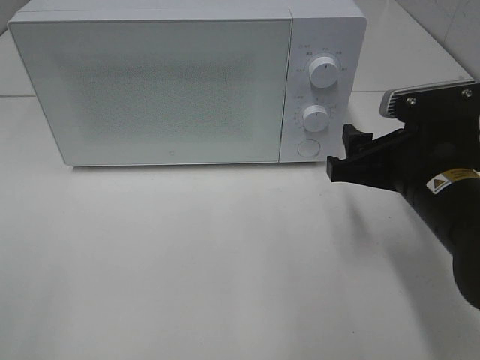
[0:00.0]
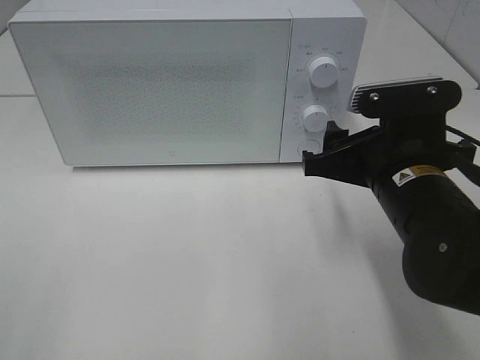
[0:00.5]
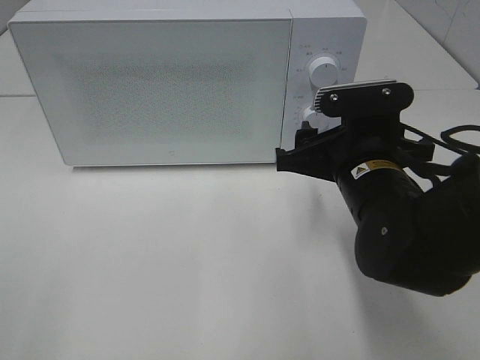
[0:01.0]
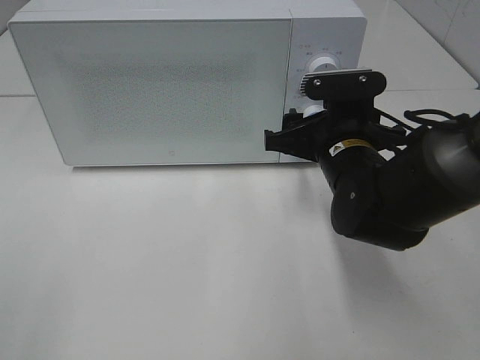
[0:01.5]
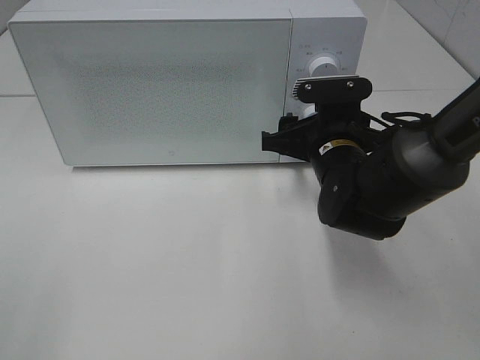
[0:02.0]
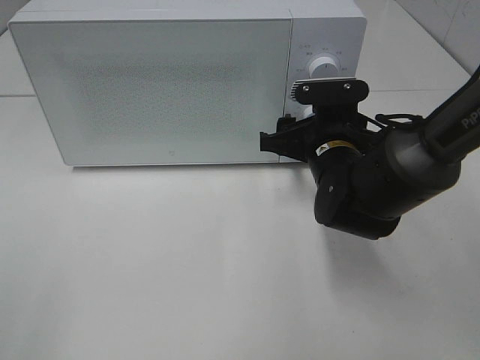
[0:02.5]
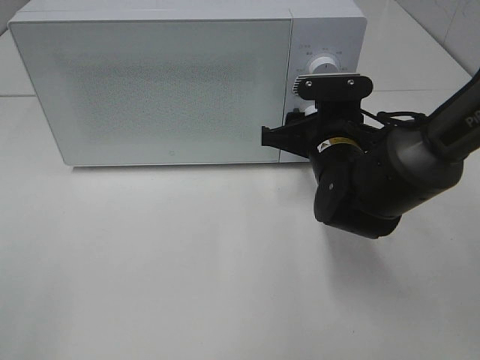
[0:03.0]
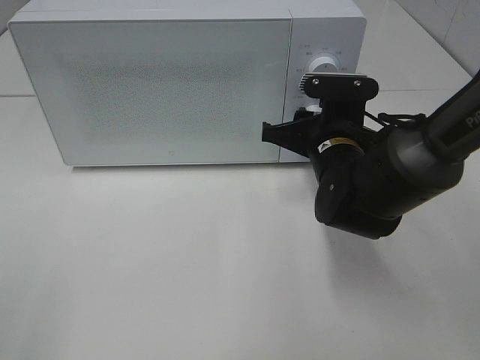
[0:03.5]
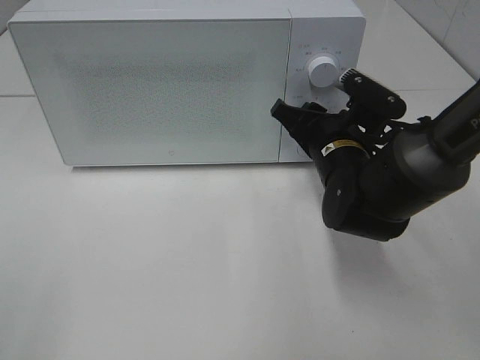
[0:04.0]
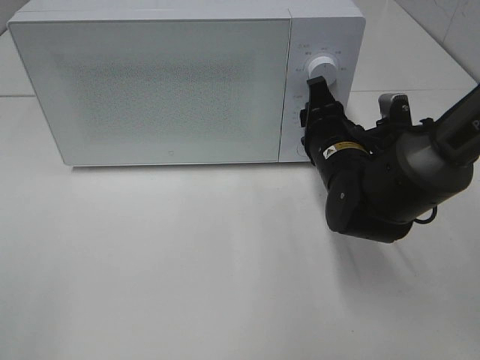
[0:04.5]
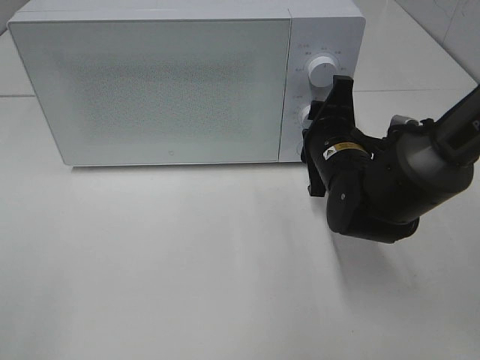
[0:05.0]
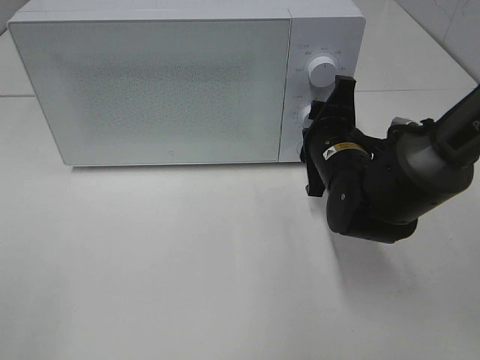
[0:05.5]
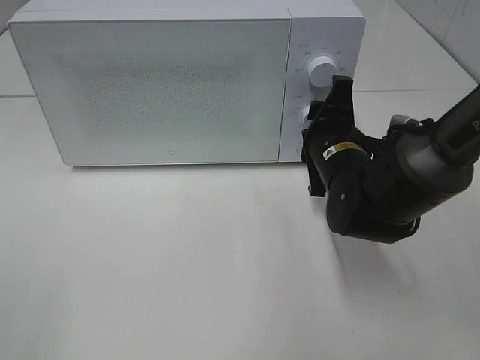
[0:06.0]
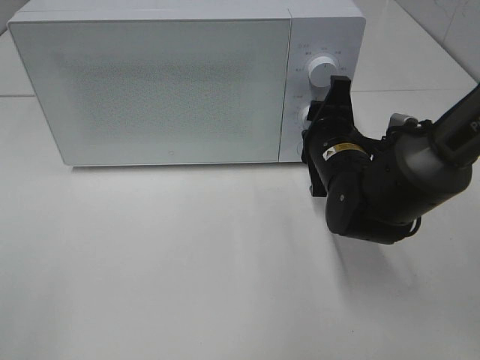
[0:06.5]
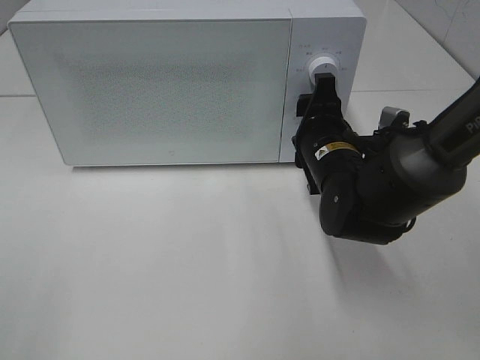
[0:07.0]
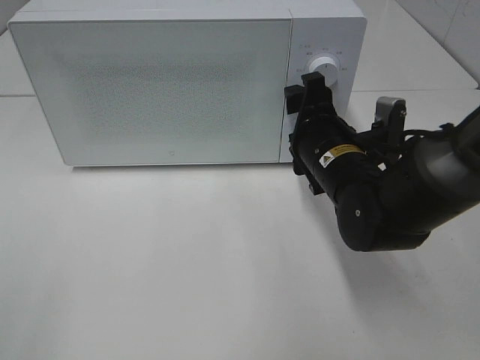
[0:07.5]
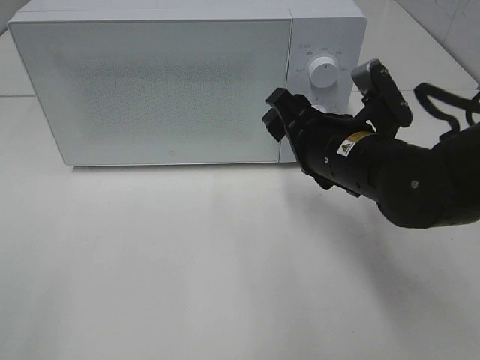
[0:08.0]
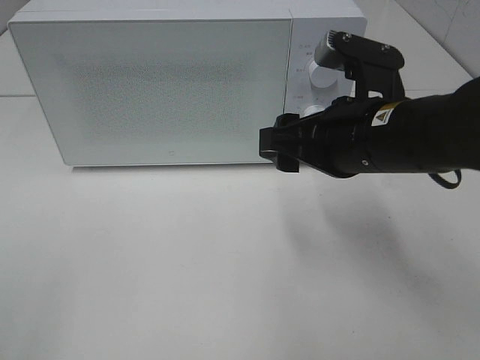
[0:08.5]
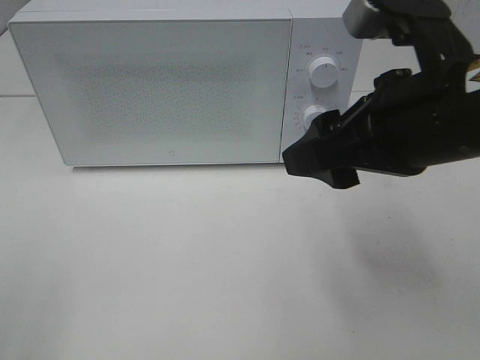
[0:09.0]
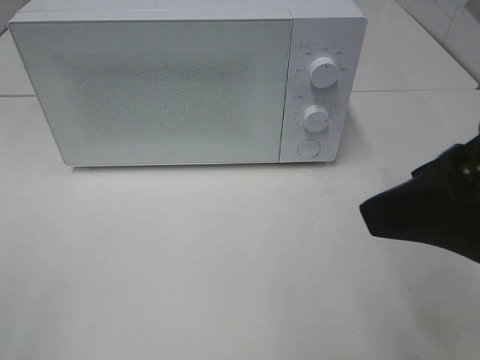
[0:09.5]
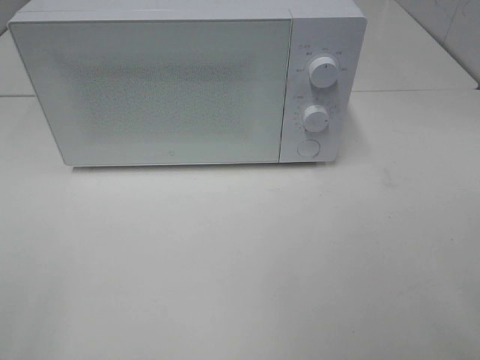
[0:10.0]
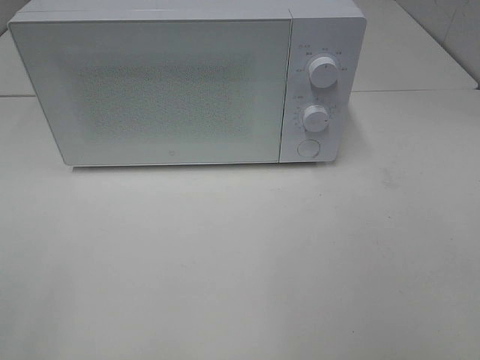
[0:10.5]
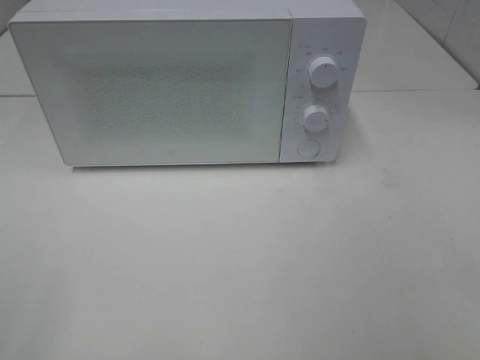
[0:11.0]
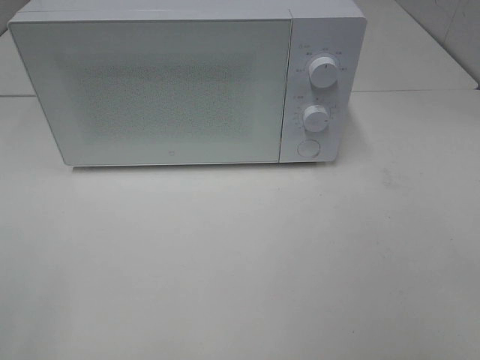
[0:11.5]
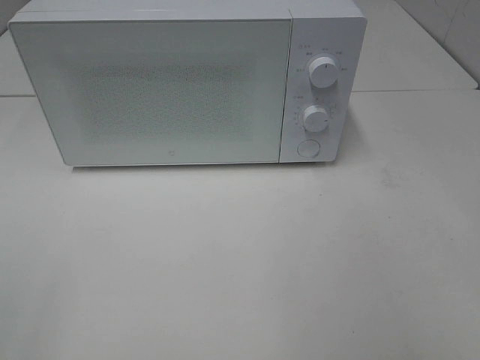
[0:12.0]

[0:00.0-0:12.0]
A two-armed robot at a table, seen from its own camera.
Task of the whole recording: Heat the burger.
Step, 0:00.0 to 0:07.0: Right hand: twist timer button.
0:00.0 to 0:02.0: The right gripper goes some 10 cm forward and to the left.
0:06.0 to 0:08.0: The right gripper shifts by about 5 cm.
0:08.0 to 0:10.0: The right gripper moves backward, upward and to the right, some 30 cm.
0:10.0 to 0:12.0: The right gripper ends up approximately 5 cm from where it was.

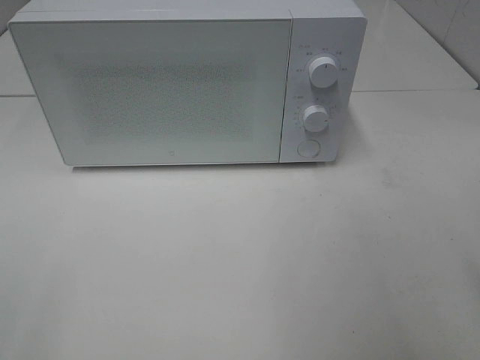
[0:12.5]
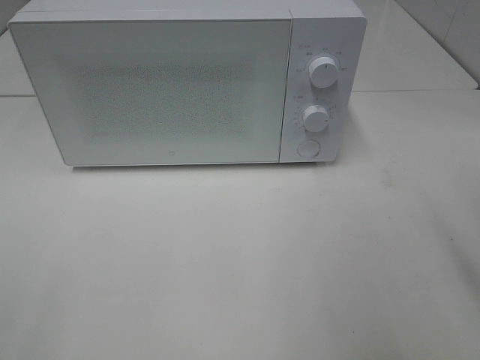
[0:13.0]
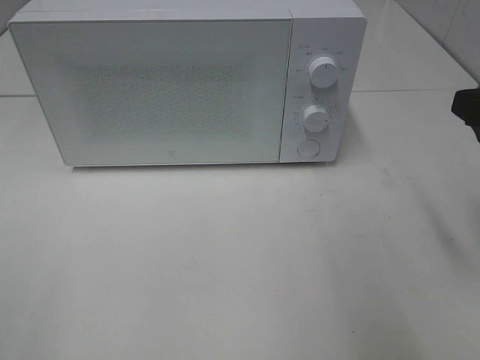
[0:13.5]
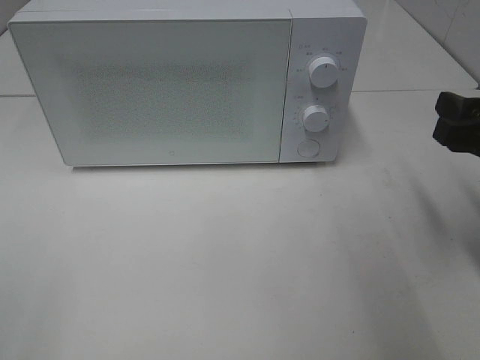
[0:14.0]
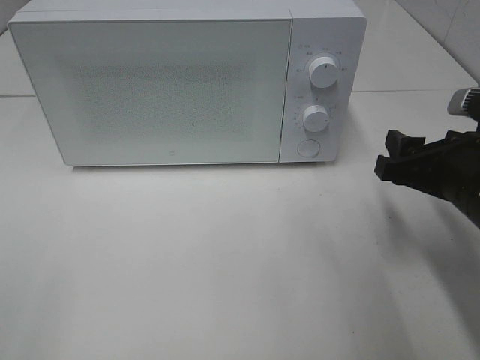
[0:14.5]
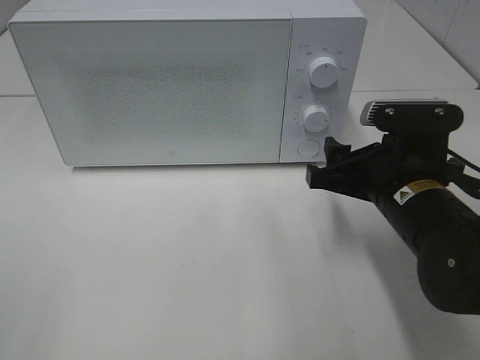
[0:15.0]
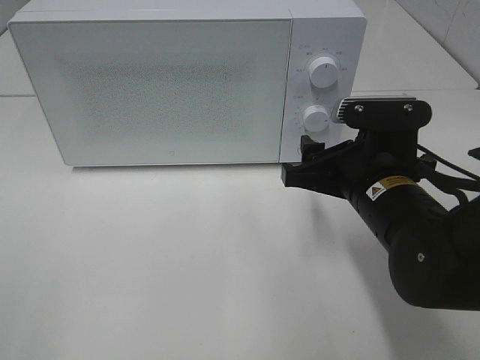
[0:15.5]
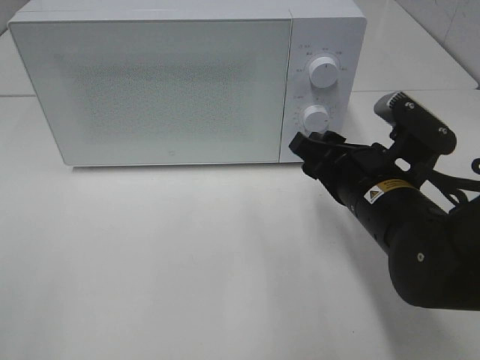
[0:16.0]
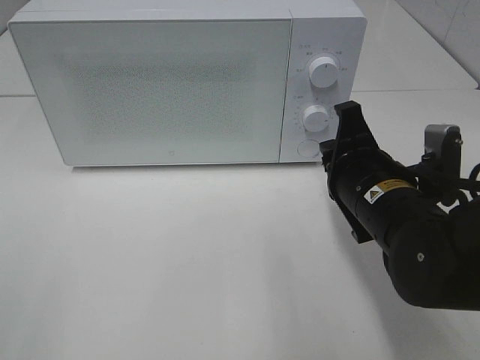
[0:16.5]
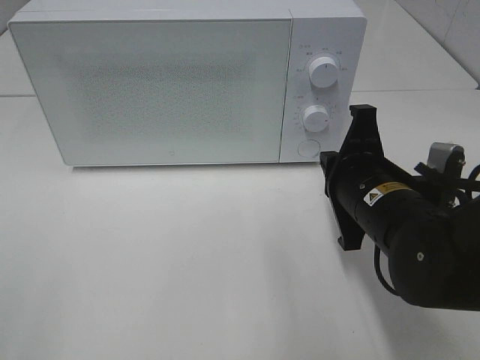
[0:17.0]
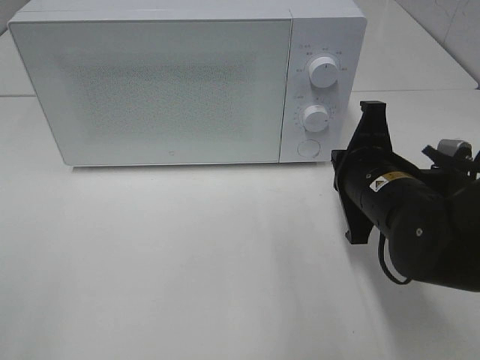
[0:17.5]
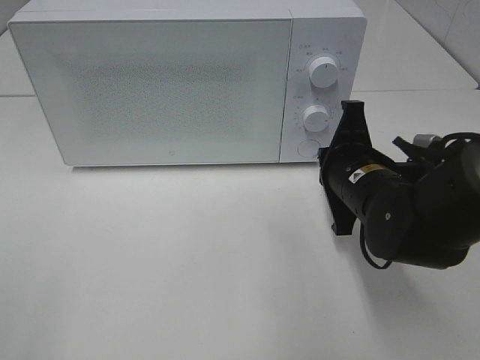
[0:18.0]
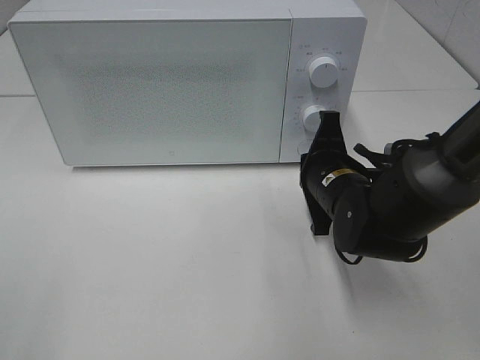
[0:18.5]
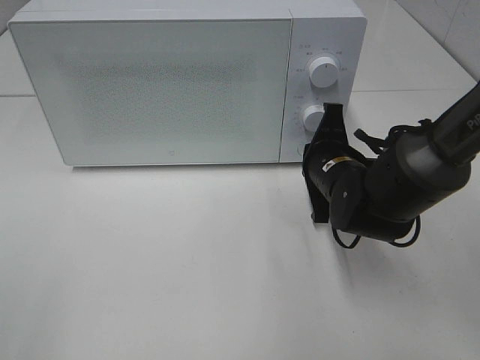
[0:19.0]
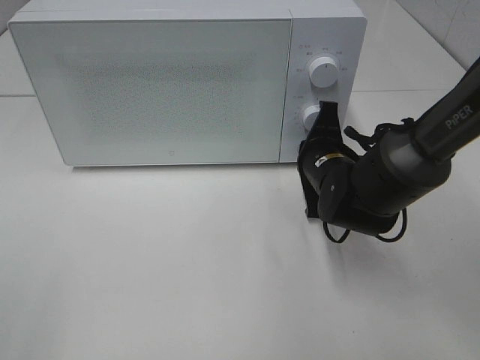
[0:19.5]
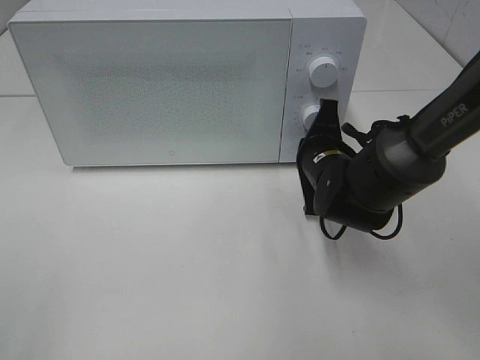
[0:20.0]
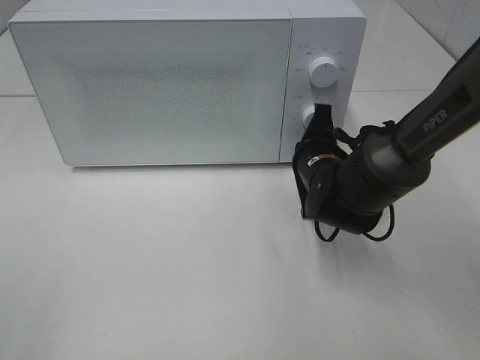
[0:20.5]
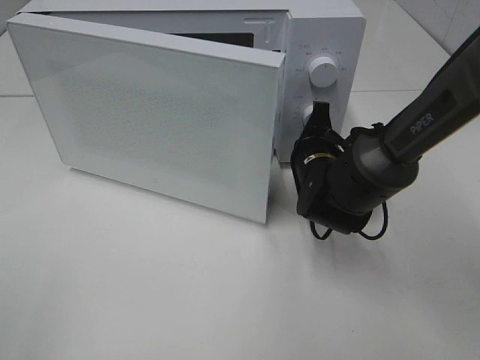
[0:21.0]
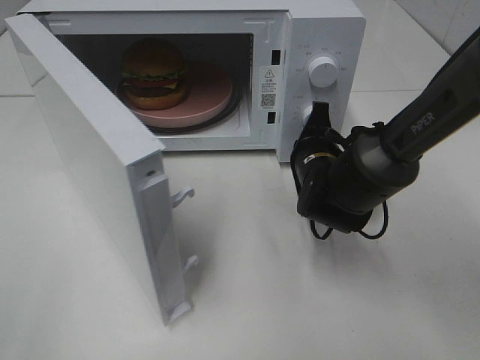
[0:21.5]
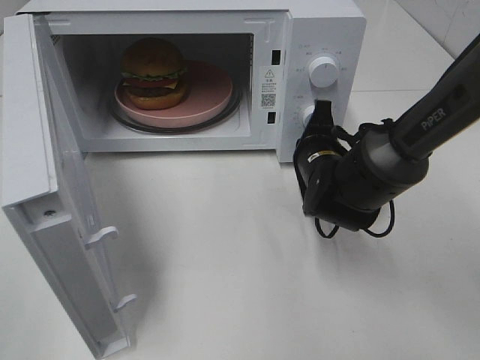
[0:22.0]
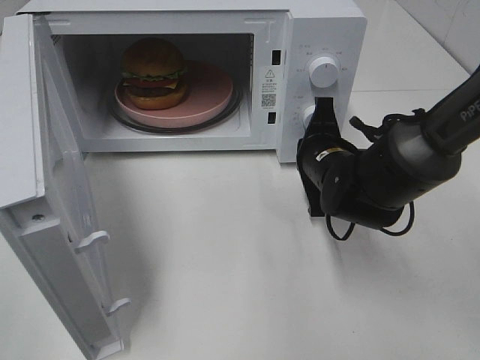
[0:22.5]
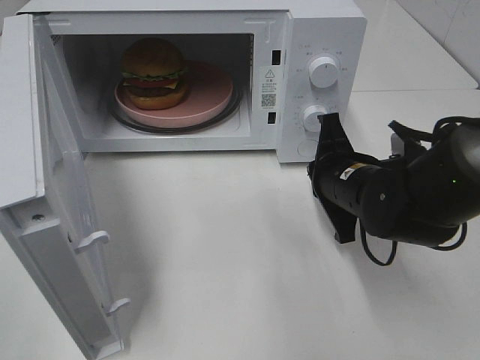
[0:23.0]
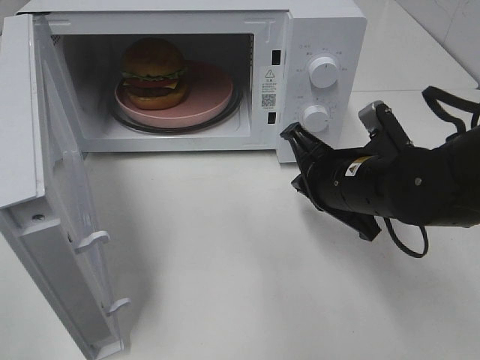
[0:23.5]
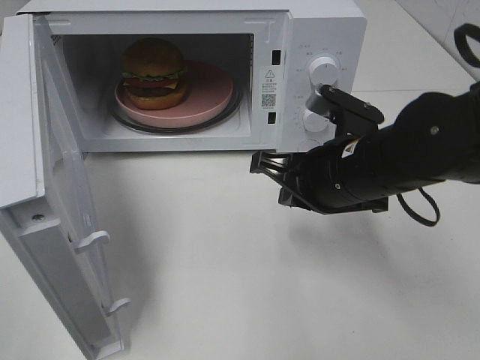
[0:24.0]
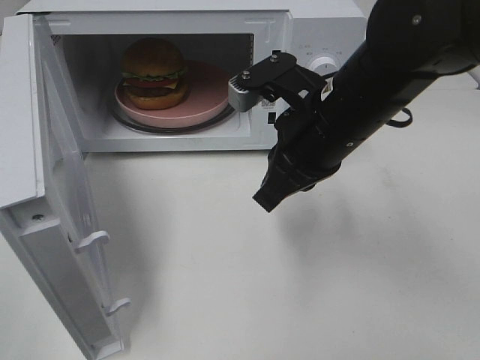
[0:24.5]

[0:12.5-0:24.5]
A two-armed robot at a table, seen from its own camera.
Task of the whole recording: Heat the burger.
Step, 0:12.5 to 0:22.5: Right hand: press the switch.
0:12.5 to 0:14.5: The right gripper heads downward and forward, covering about 20 cm.
0:14.5 to 0:16.5: The right gripper travels to the left by some 10 cm, and closes.
0:16.5 to 0:18.5: The right gripper travels forward by approximately 5 cm.
0:18.5 to 0:20.5: The grippers make only small movements.
0:22.5 to 0:24.5: The right gripper travels upward and backward by some 15 cm.

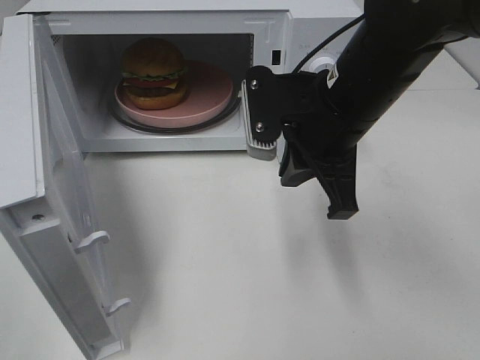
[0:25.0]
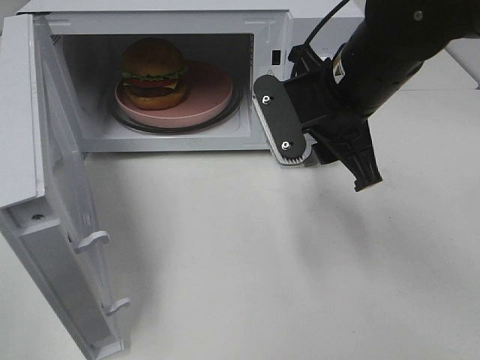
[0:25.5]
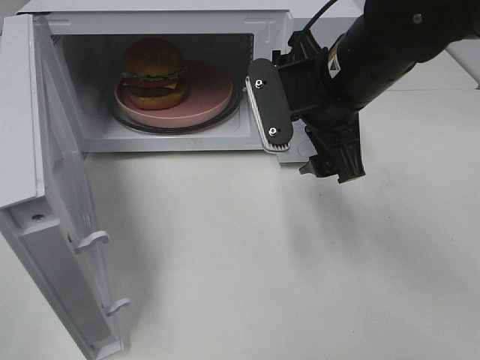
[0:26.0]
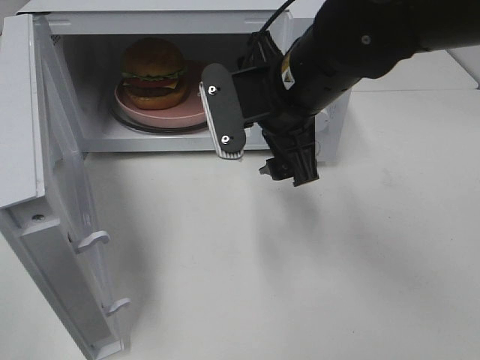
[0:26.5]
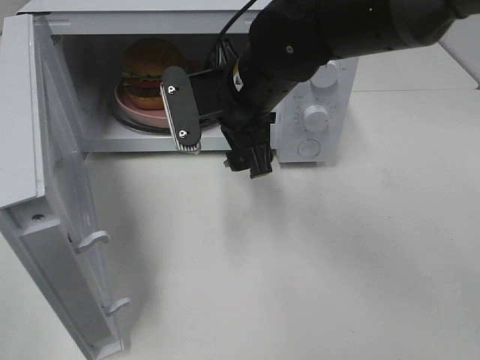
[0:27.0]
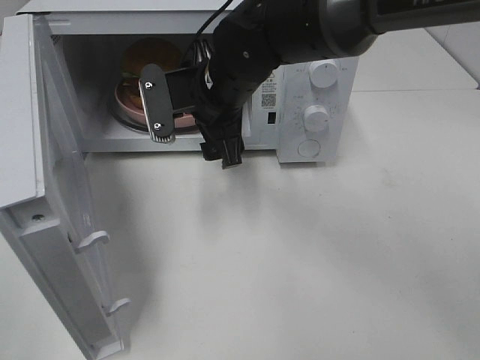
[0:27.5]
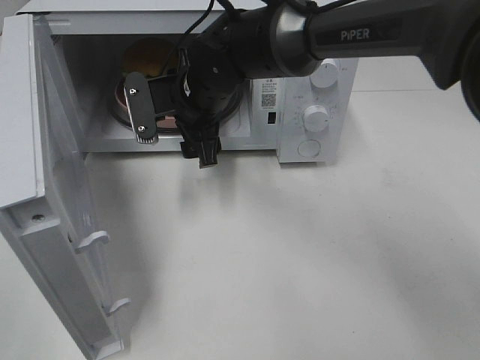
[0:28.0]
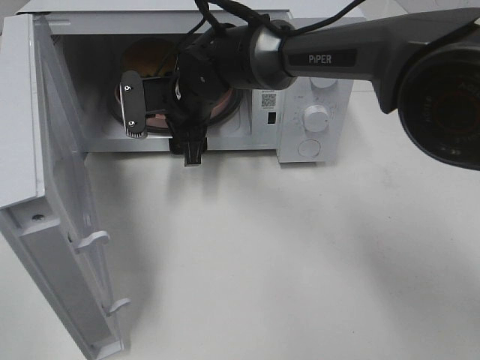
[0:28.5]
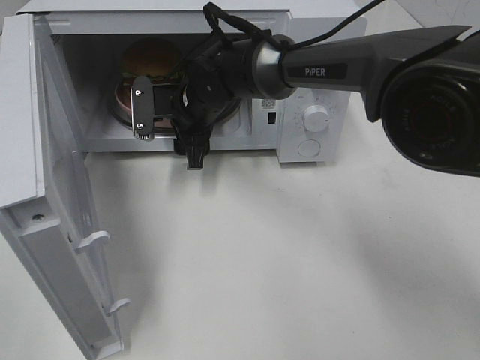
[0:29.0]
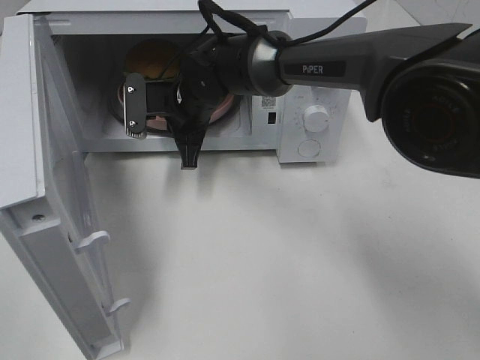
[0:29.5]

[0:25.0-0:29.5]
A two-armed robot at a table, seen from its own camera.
Task of the whole recording: Heat the burger.
Step, 0:25.0 to 0:29.5: Right hand: grab the plate with the hamburger.
0:25.0 to 0:27.0: The right gripper travels to the left and forward by about 10 cm, and opens up.
0:27.0 to 0:29.5: The right gripper is displaced forward, downward and to the left by roughly 15 cm, and closes its fingers.
